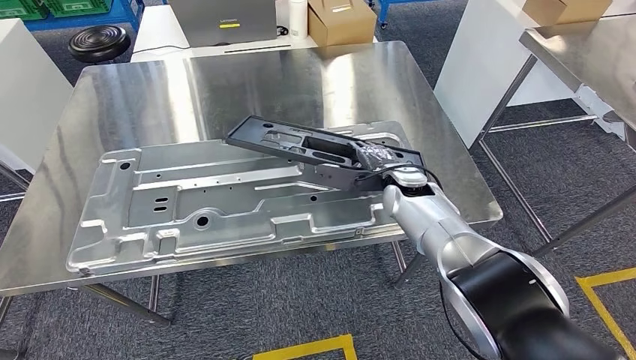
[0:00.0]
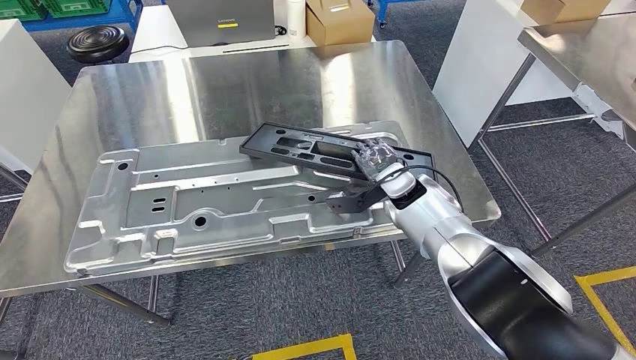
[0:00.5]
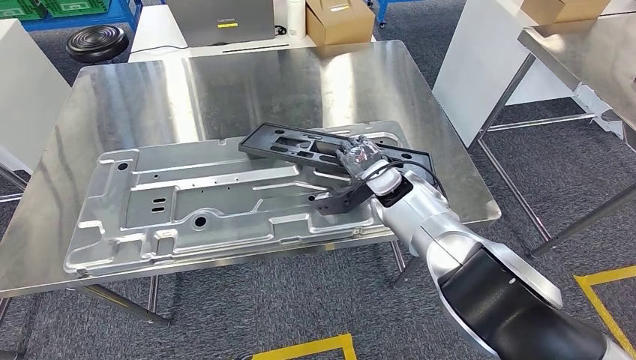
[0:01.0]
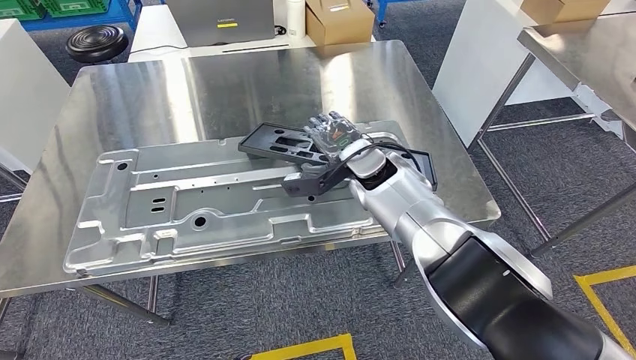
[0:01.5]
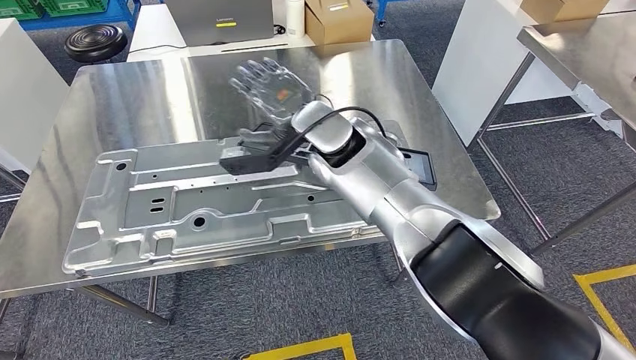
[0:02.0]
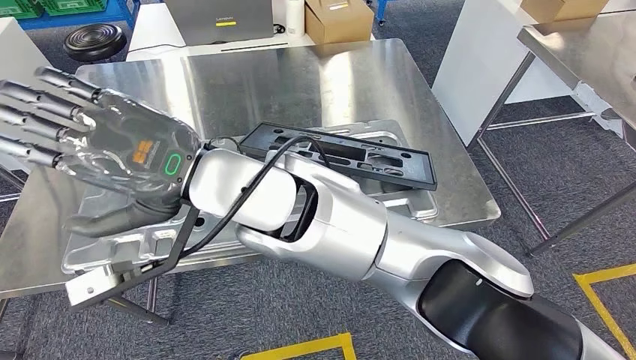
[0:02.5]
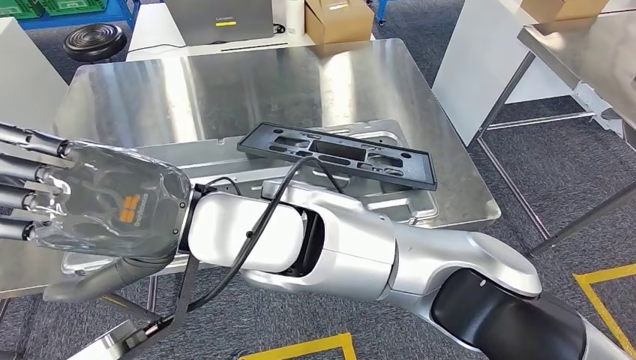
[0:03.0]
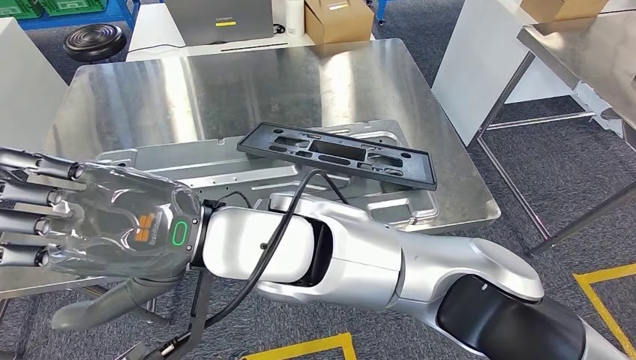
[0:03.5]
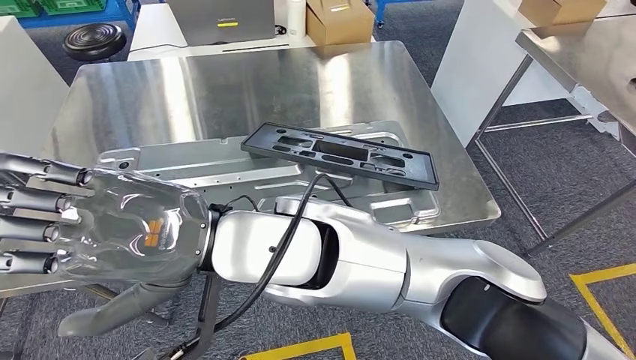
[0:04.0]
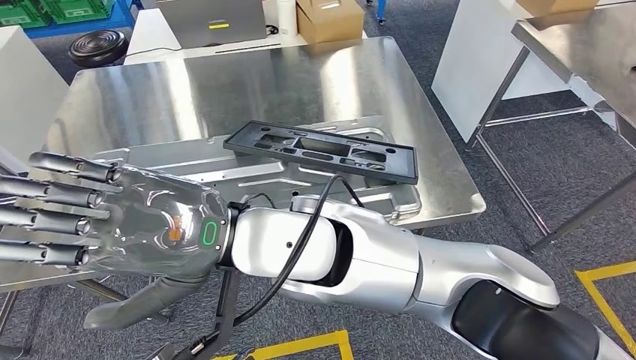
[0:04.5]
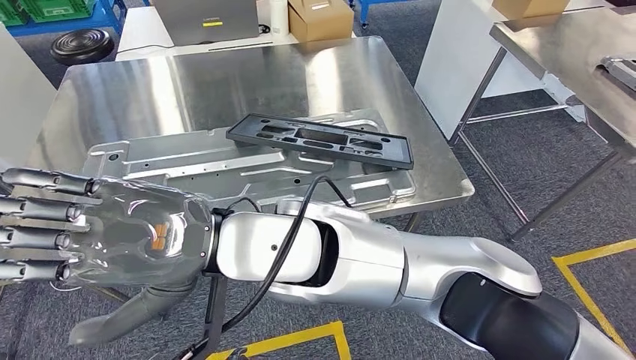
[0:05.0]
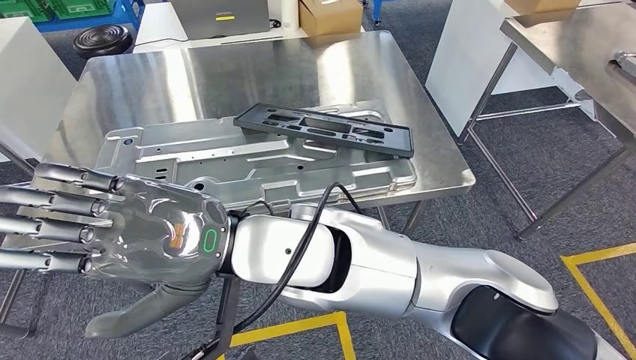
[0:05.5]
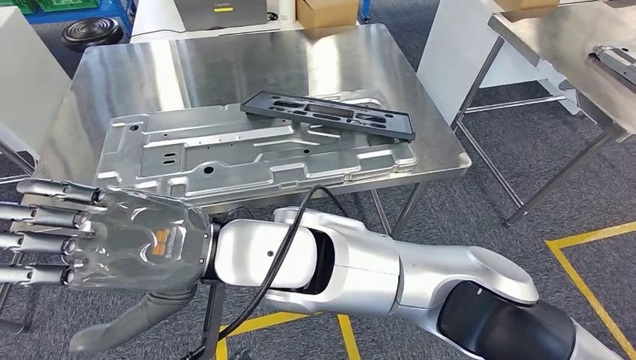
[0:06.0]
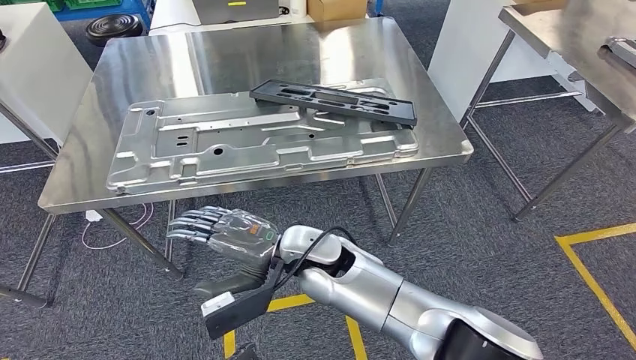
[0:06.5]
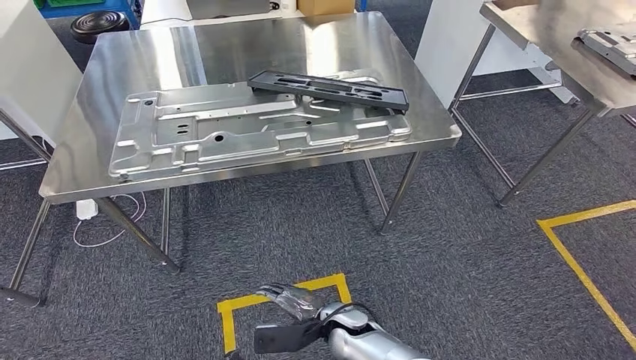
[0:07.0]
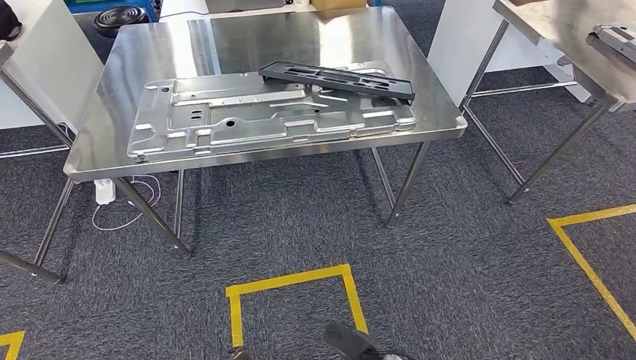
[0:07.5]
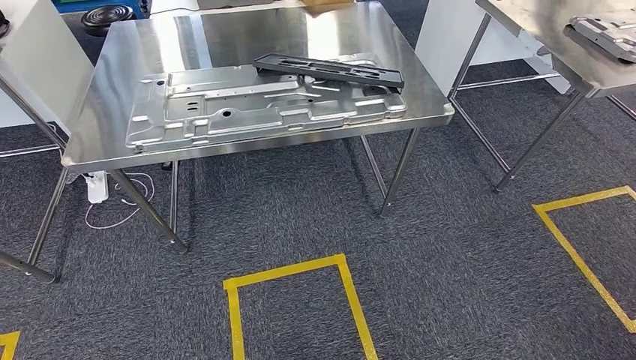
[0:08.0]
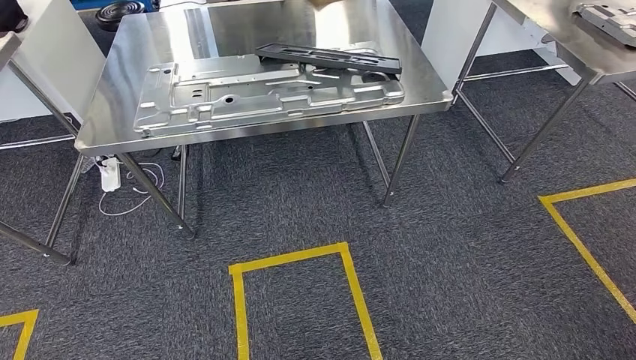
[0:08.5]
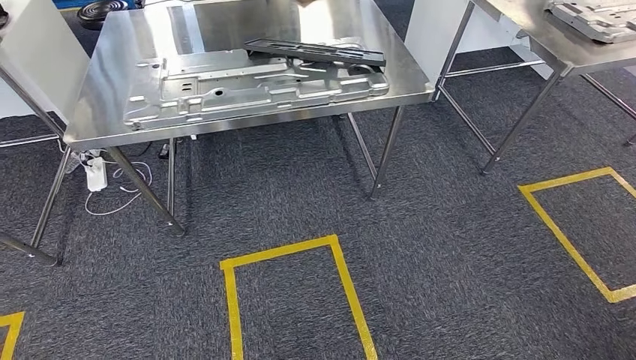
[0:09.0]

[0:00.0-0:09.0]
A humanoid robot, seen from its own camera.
Step, 0:00.0 to 0:03.5: Insert the large material into the corresponding slot on the workbench.
Step, 0:04.0 to 0:09.0: Return to the initial position at the shelf.
0:00.0 to 0:02.0: The right hand travels to the left and upward by about 20 cm.
